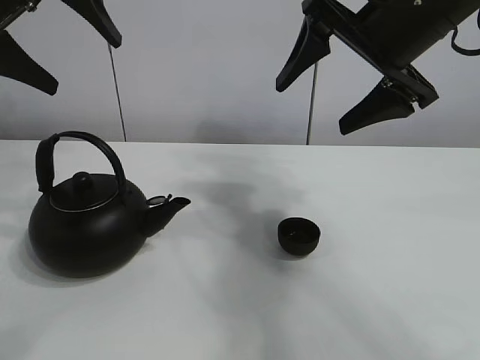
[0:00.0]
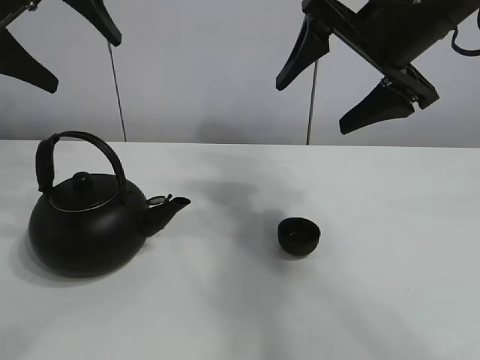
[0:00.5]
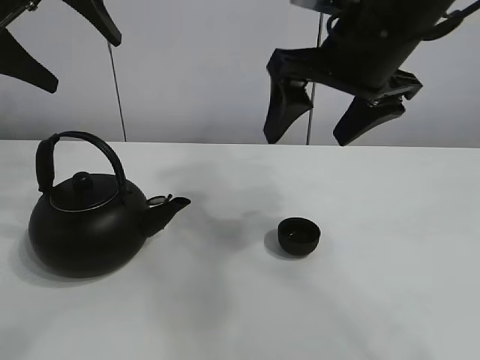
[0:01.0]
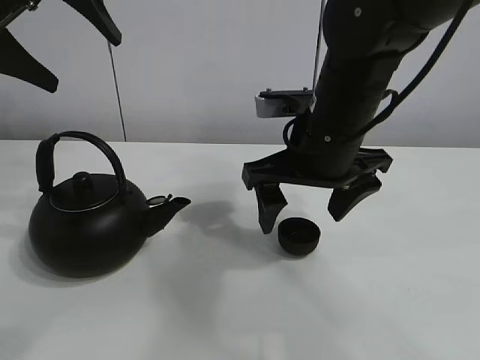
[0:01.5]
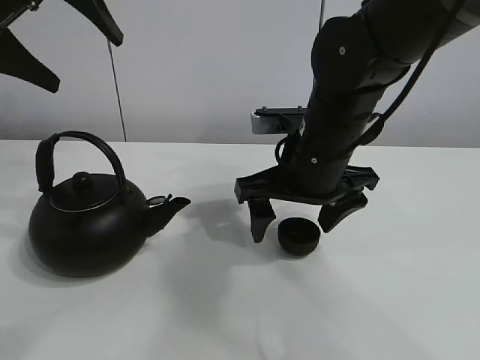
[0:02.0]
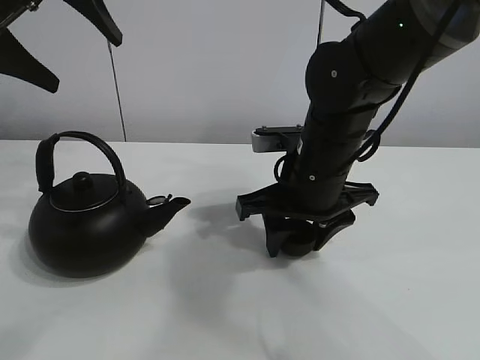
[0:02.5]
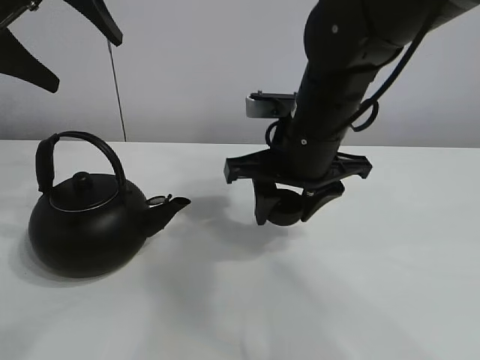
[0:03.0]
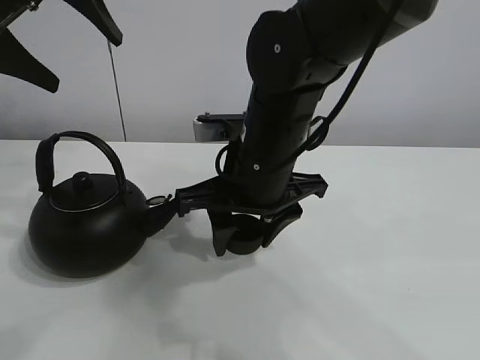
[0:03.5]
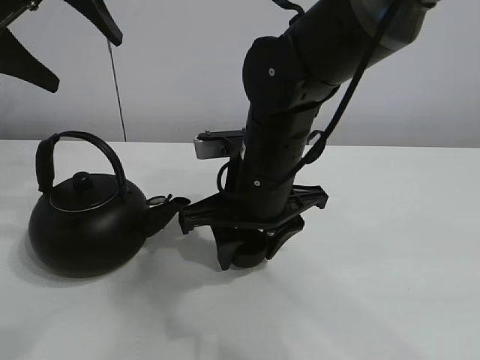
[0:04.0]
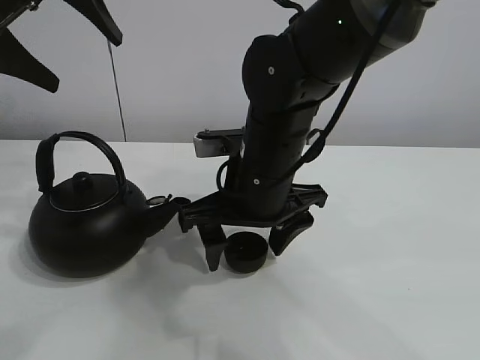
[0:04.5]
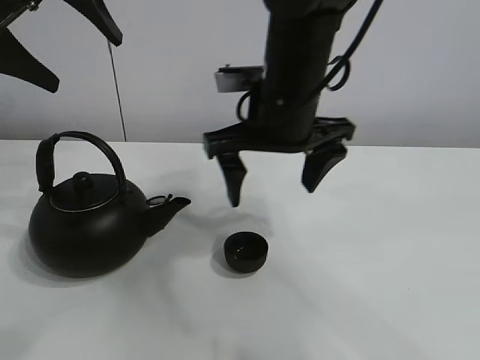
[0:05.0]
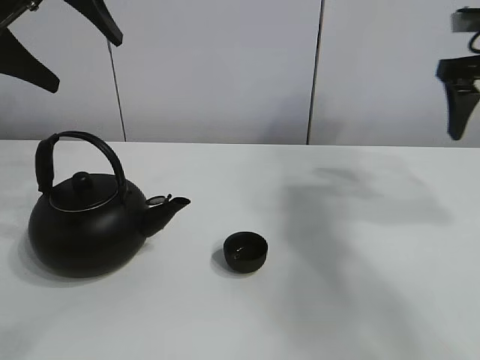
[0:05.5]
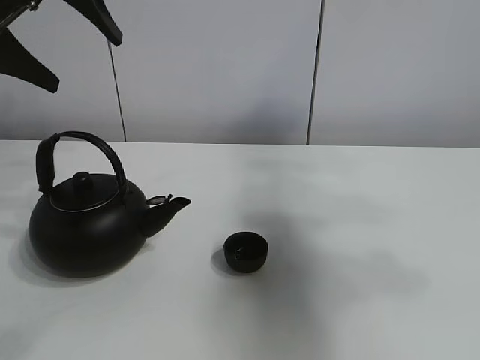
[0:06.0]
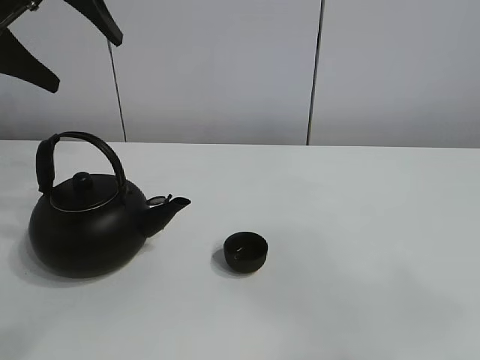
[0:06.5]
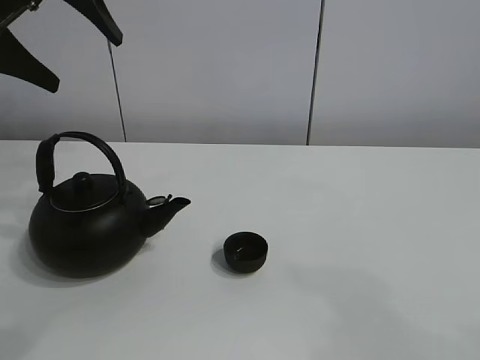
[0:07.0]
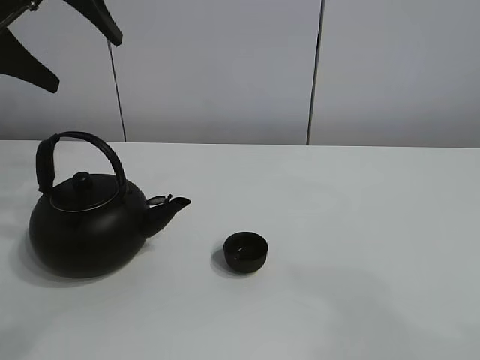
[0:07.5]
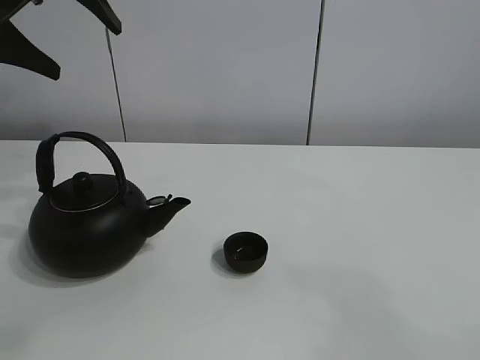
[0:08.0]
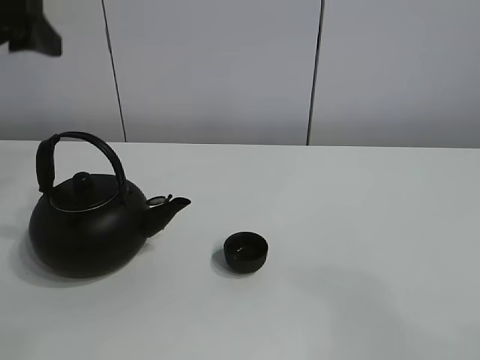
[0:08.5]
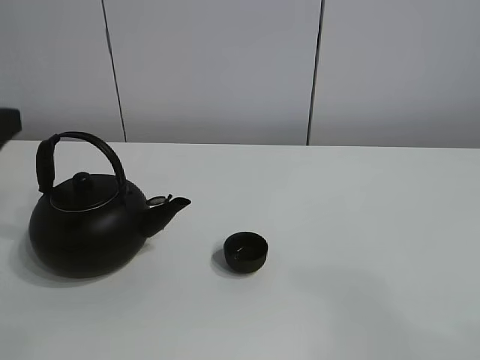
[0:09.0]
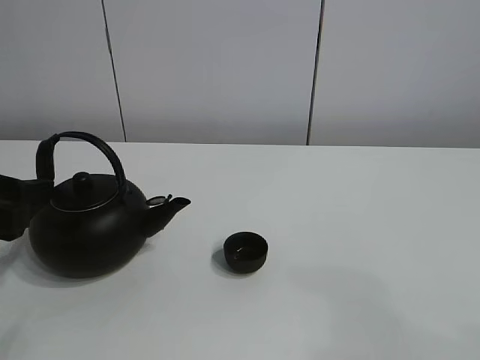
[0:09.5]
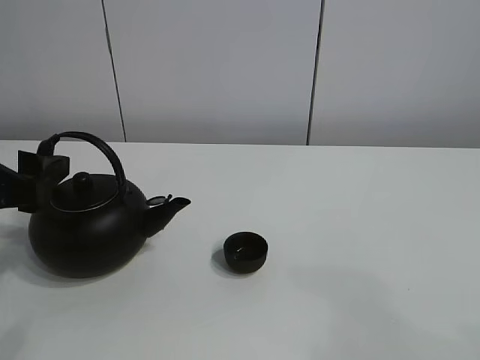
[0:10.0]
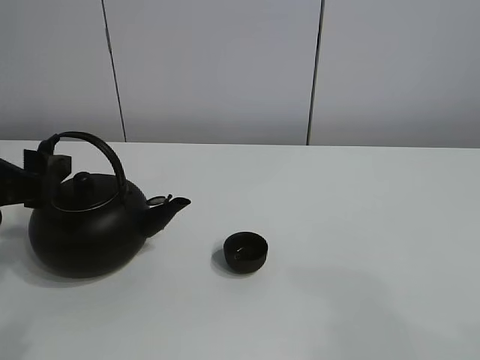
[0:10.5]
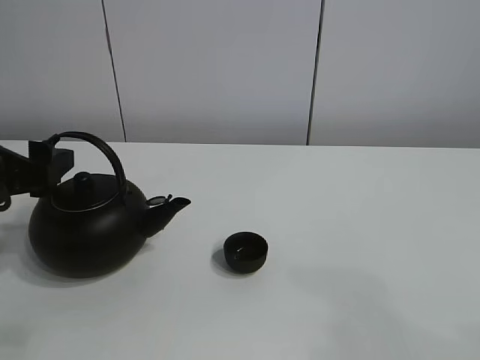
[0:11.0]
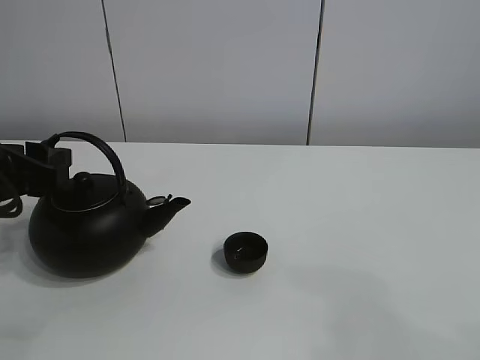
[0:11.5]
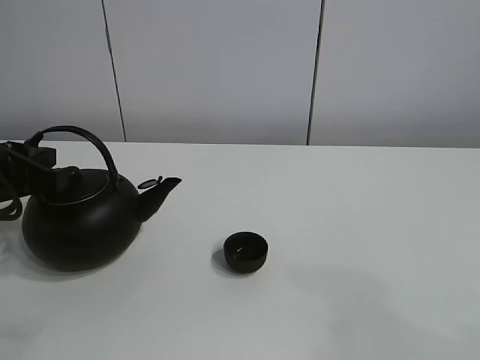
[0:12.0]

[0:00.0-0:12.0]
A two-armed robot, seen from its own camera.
Task of the whole recording: pour tea into the teacup.
Step, 0:00.0 to 0:02.5: Pick up the teacup with the right gripper.
Step, 0:03.0 to 0:04.0: Place the teacup in the center of view with the right gripper.
0:02.0 to 0:04.0: The right gripper moves to the left, about 5 cm, and closes.
0:04.0 to 0:06.0: The right gripper goes approximately 35 cm to the right and upward, and opens.
0:06.0 to 0:08.0: The right gripper shifts some 30 cm backward and downward.
0:08.0 to 0:10.0: The left gripper heads downward and backward, covering some 20 cm.
0:10.0 to 0:12.0: The left gripper closes.

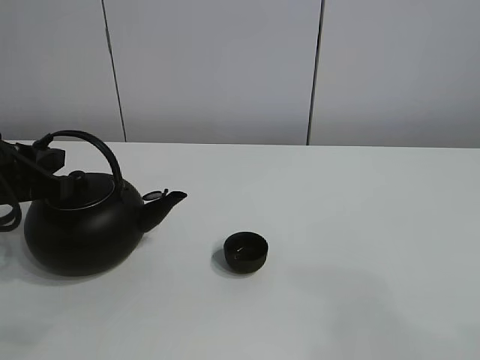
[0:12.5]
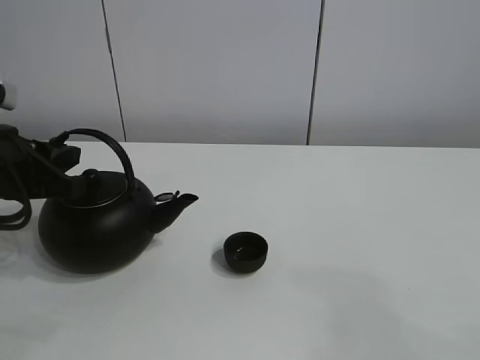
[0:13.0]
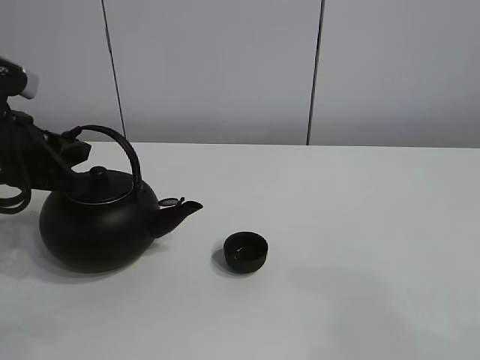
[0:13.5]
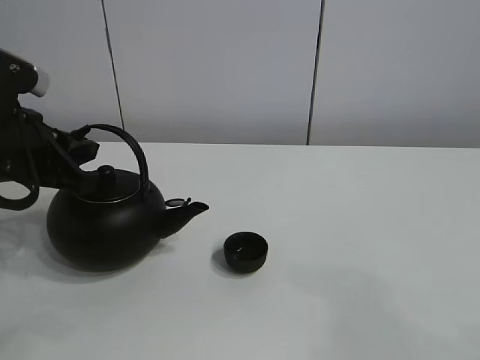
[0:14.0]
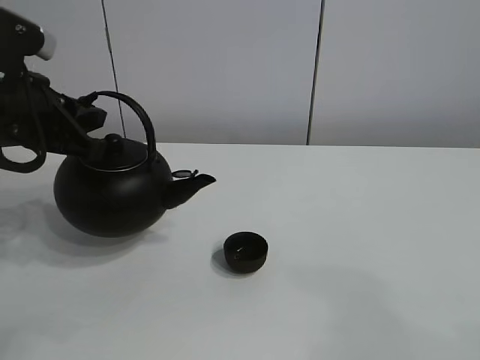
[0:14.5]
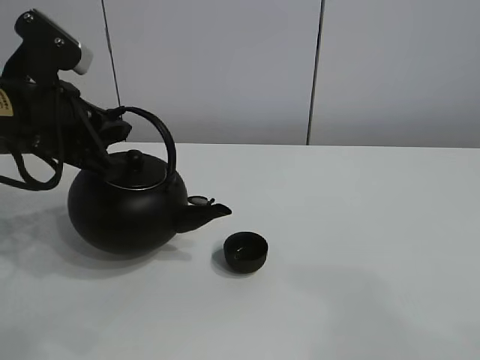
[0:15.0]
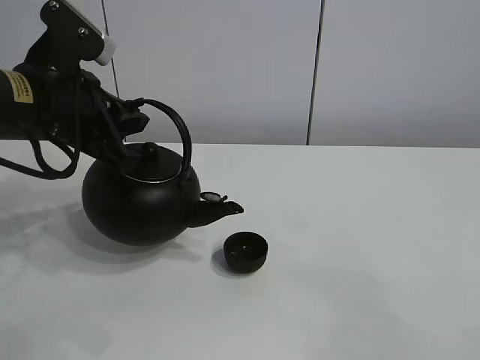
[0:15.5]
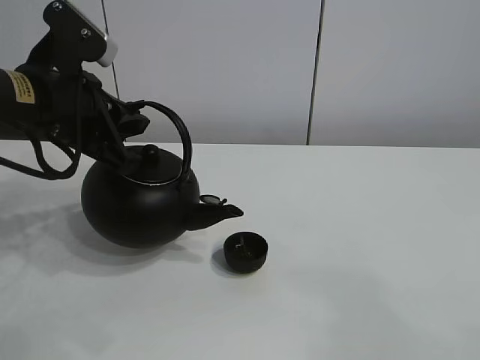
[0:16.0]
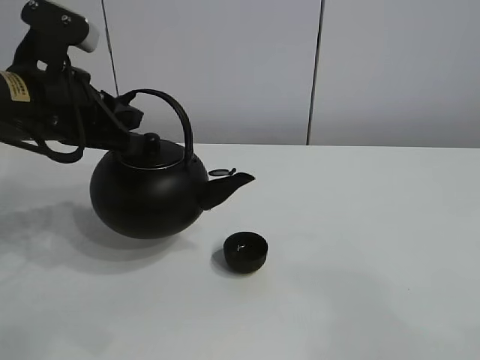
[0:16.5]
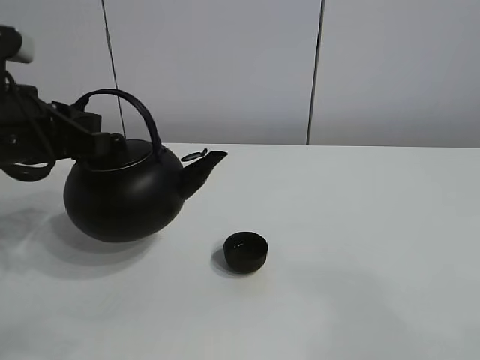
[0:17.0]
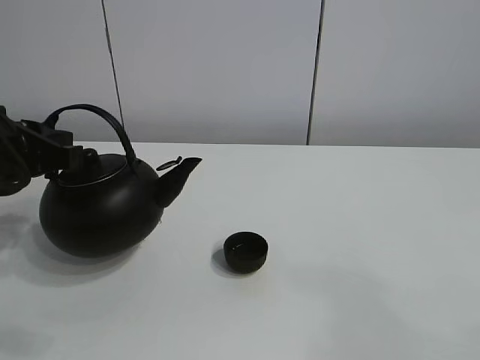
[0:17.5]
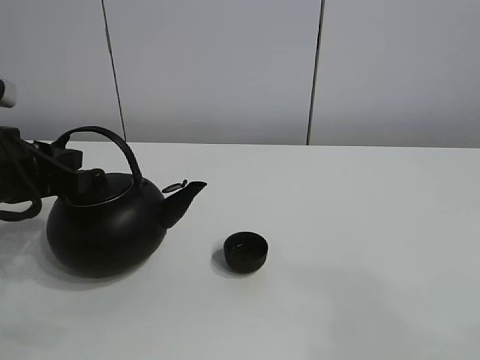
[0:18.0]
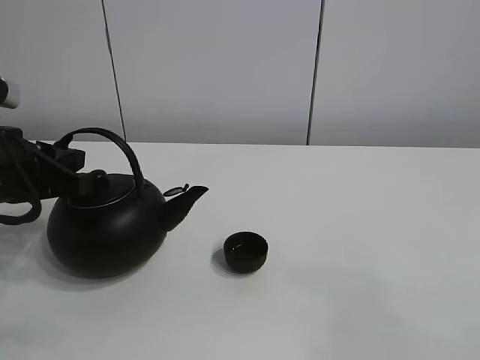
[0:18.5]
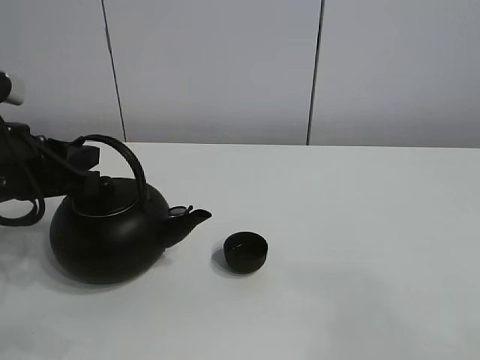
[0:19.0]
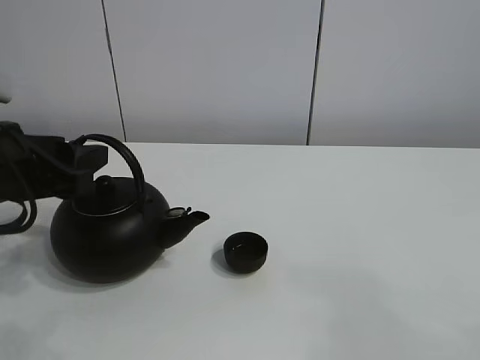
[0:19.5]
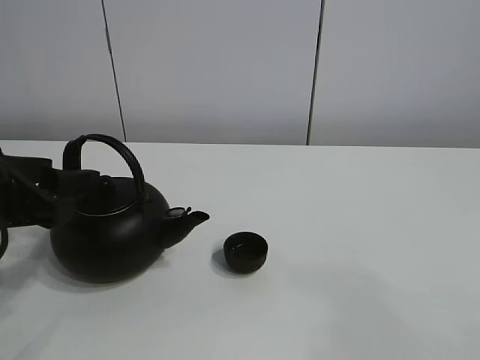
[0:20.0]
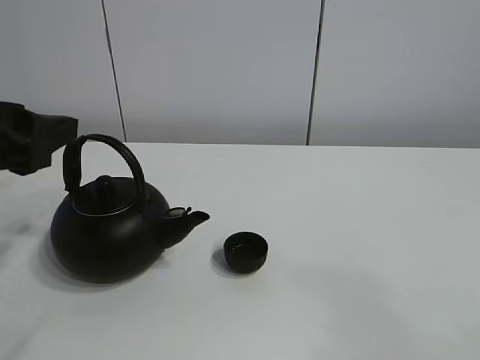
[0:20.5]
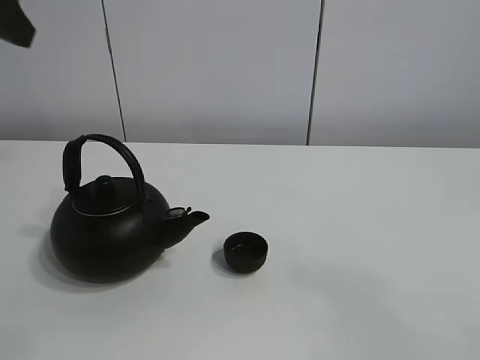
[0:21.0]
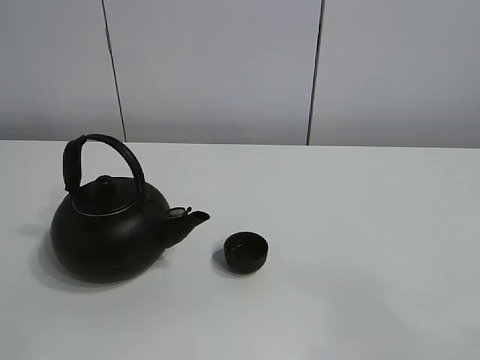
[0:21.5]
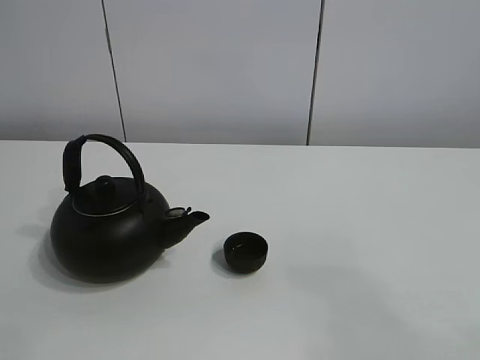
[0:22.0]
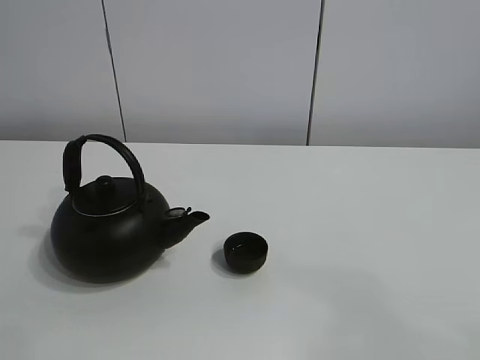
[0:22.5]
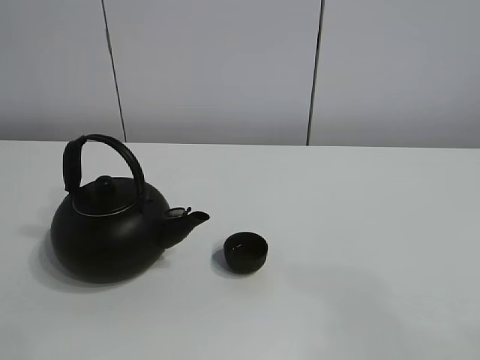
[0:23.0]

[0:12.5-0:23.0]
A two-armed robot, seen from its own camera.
Task of the whole recording: pour tea into the teacup.
Step, 0:14.5 to 0:16.0: Pour tea into the teacup with the left gripper.
0:12.5 to 0:14.5: The left gripper is displaced upward by about 5 cm.
0:14.5 to 0:16.5: There are only small adjustments of the grippers.
0:16.5 to 0:19.0: The left gripper moves downward, approximately 5 cm.
0:19.0 to 0:21.0: The left gripper travels upward by roughly 20 cm, and opens its fingers.
0:21.0 to 0:23.0: The left gripper travels backward by approximately 30 cm.

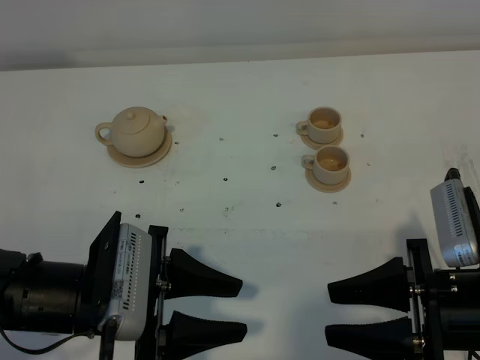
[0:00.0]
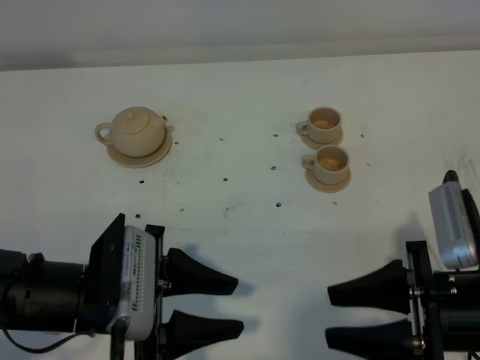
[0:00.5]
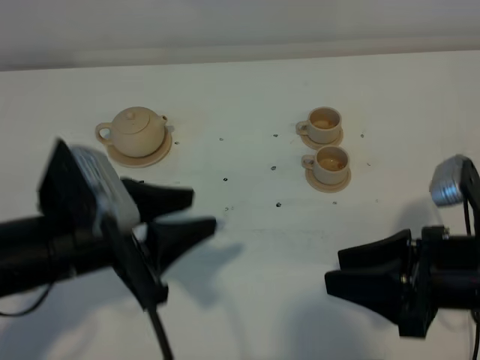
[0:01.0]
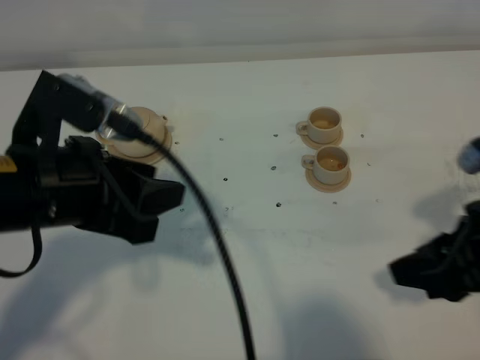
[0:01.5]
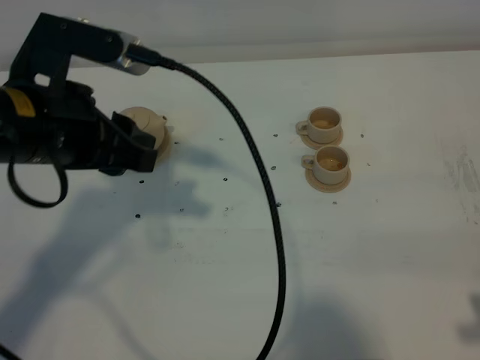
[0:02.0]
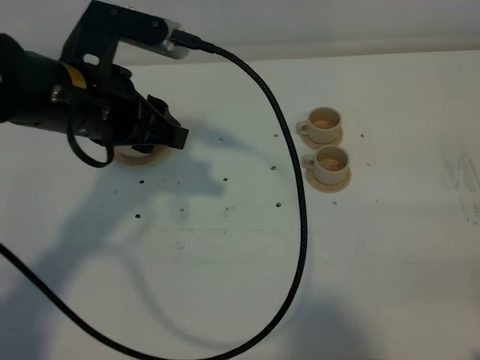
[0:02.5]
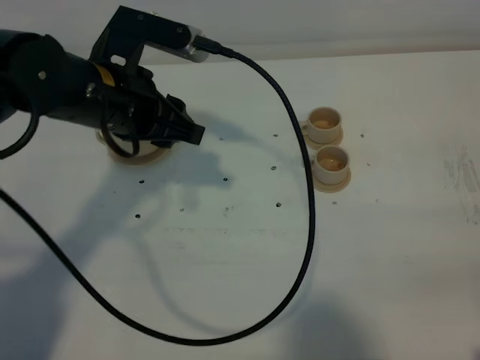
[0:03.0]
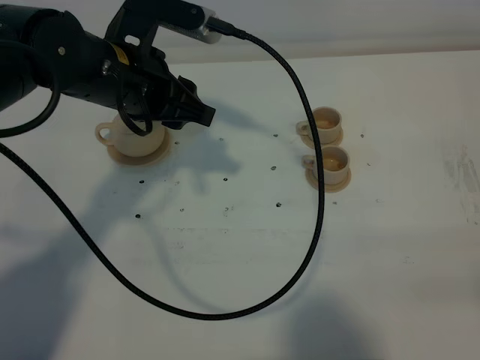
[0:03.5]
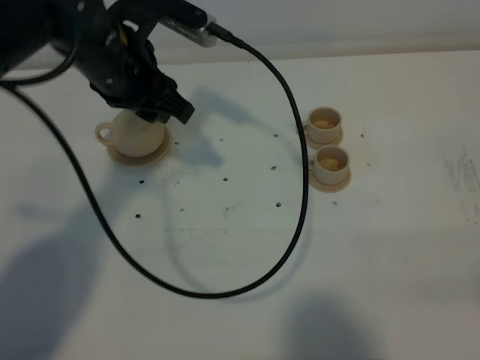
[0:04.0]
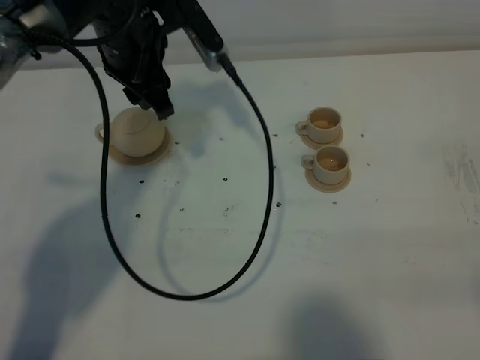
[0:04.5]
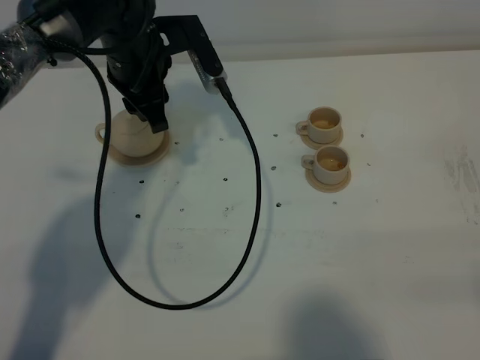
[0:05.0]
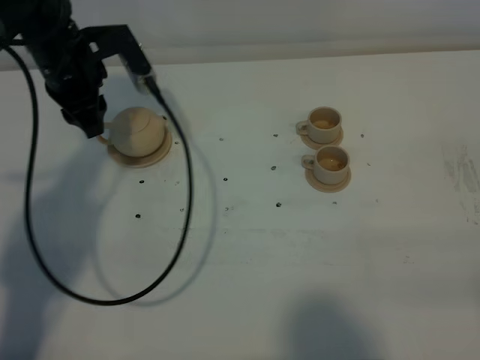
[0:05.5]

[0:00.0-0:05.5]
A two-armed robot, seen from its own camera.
Task of the whole recording: grasp the brown teapot and pour the tea into the two brown teacups one by one, put the brown teapot back in its original place.
0:00.0 to 0:02.0: The left gripper heads upward and forward, covering roughly 15 cm. The right gripper goes some 15 cm to the right, upward and backward.
0:02.0 to 0:03.5: The right gripper moves backward, about 5 cm, while the left gripper moves forward, approximately 10 cm.
0:03.5 to 0:05.5: The left gripper goes approximately 15 cm forward, to the left and downward.
